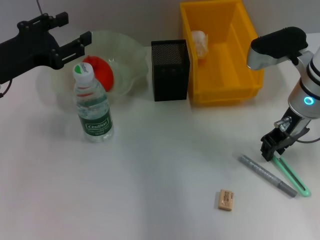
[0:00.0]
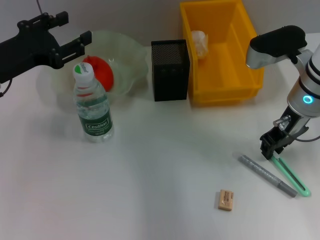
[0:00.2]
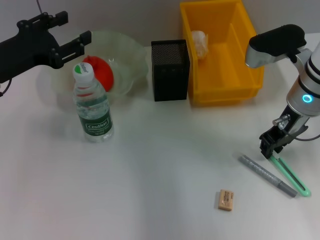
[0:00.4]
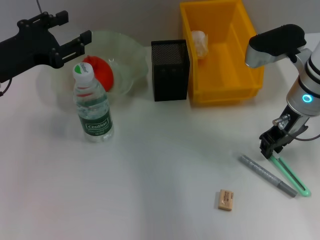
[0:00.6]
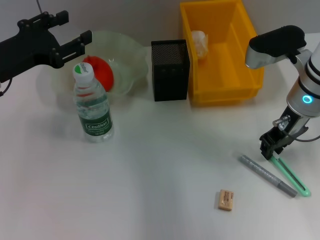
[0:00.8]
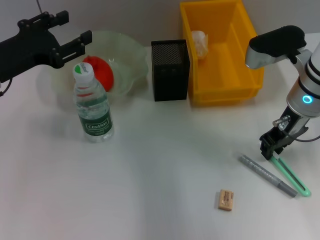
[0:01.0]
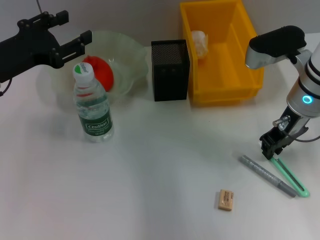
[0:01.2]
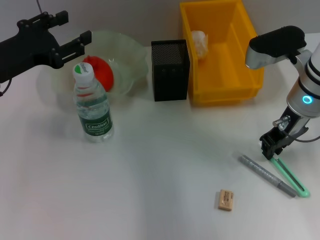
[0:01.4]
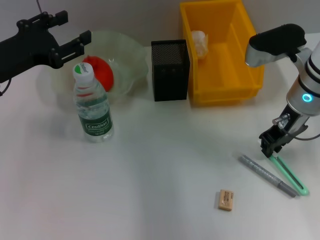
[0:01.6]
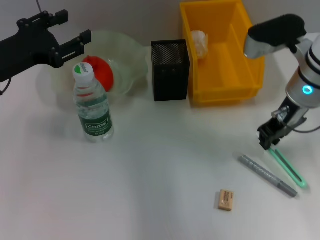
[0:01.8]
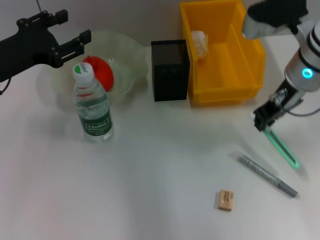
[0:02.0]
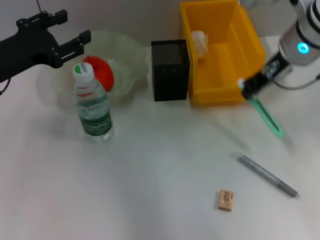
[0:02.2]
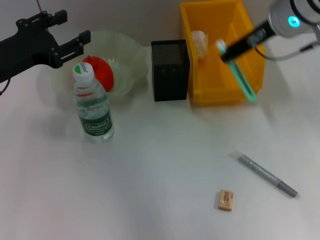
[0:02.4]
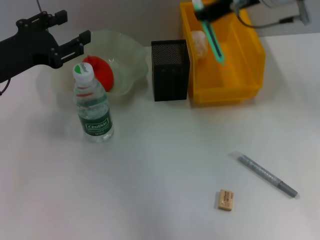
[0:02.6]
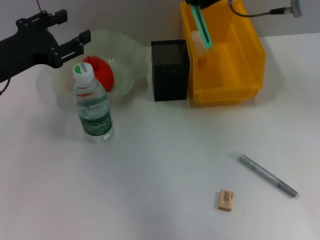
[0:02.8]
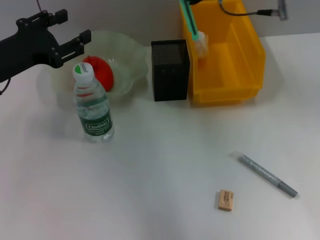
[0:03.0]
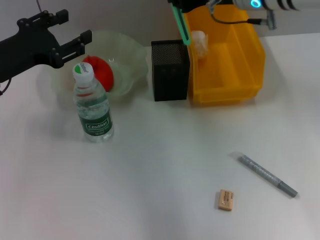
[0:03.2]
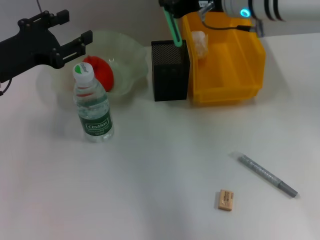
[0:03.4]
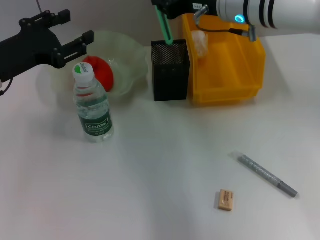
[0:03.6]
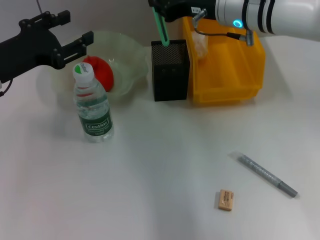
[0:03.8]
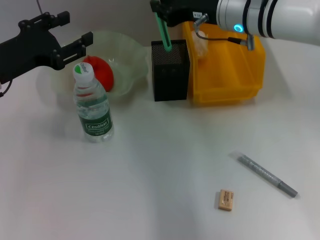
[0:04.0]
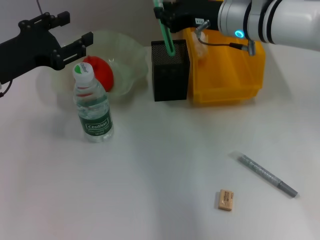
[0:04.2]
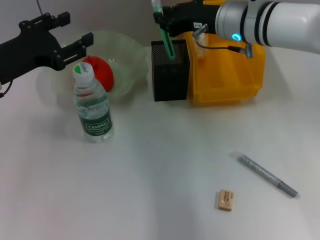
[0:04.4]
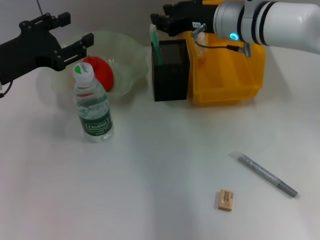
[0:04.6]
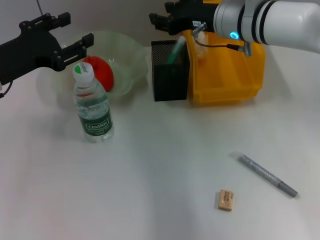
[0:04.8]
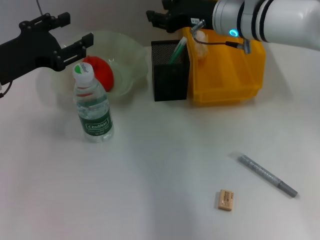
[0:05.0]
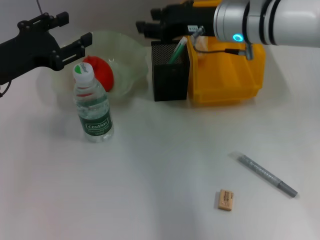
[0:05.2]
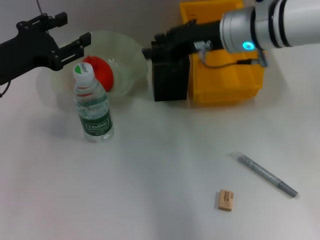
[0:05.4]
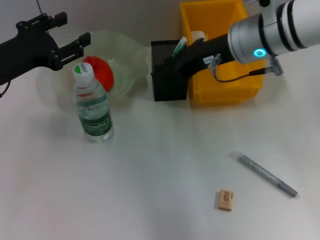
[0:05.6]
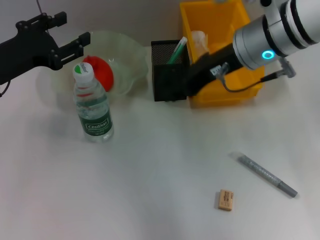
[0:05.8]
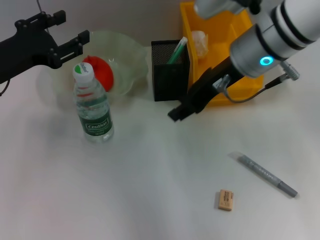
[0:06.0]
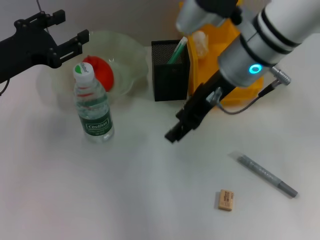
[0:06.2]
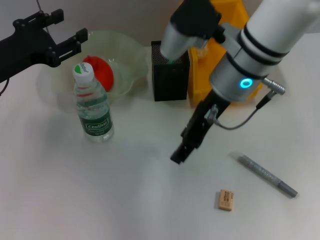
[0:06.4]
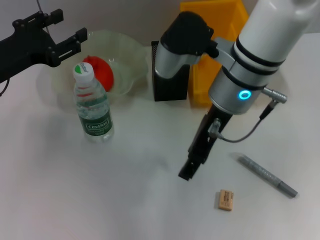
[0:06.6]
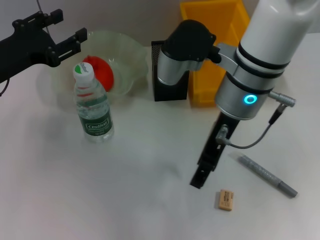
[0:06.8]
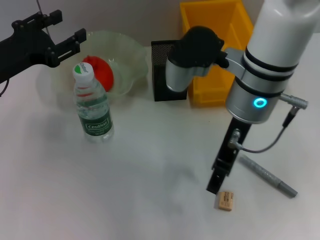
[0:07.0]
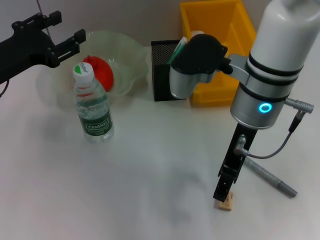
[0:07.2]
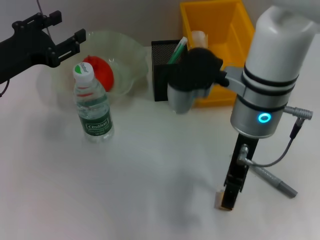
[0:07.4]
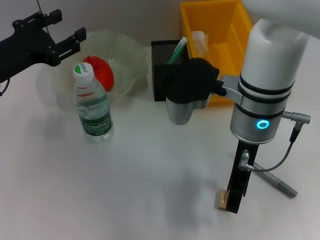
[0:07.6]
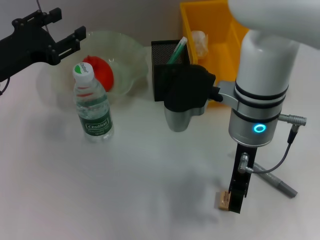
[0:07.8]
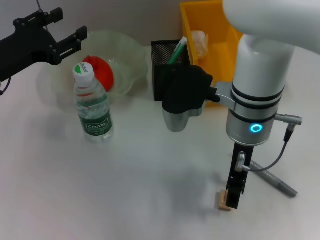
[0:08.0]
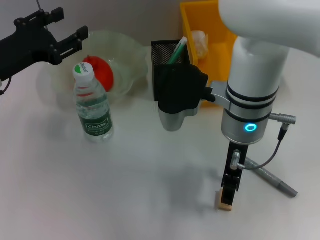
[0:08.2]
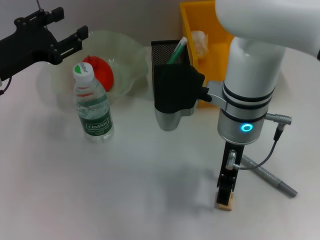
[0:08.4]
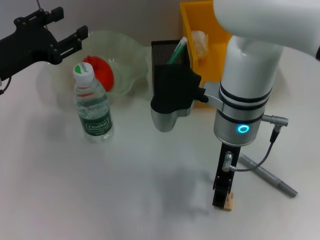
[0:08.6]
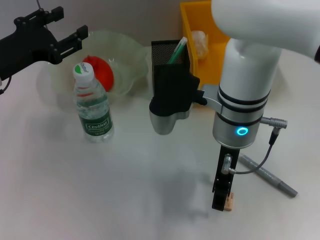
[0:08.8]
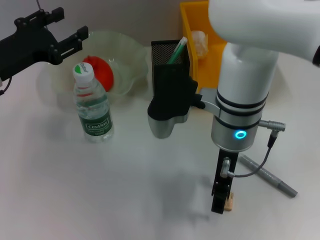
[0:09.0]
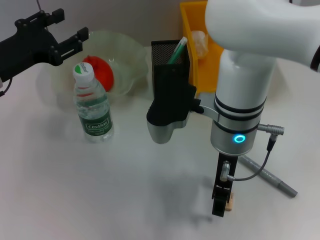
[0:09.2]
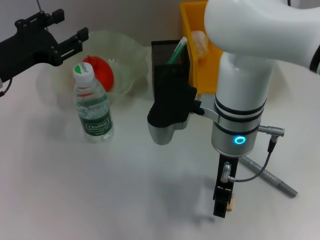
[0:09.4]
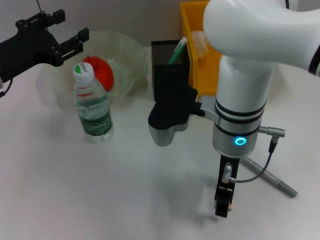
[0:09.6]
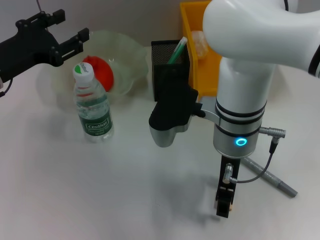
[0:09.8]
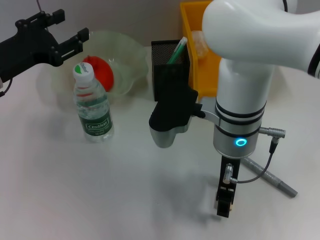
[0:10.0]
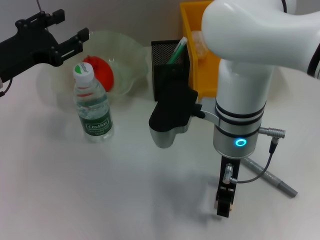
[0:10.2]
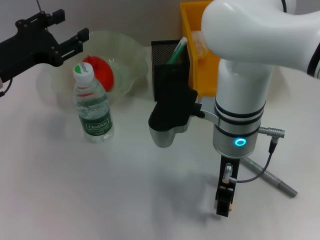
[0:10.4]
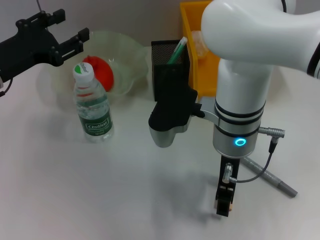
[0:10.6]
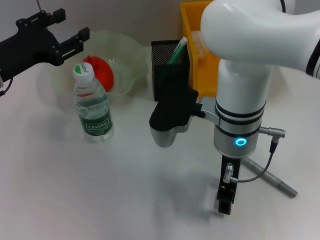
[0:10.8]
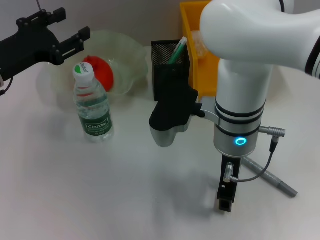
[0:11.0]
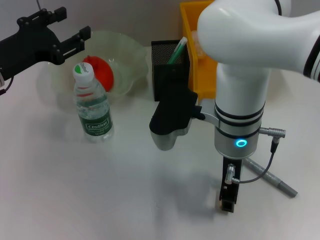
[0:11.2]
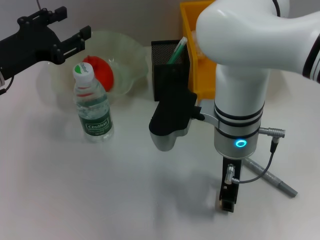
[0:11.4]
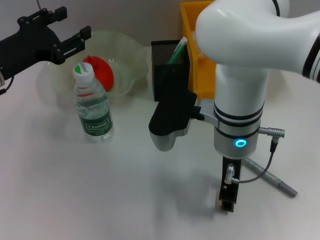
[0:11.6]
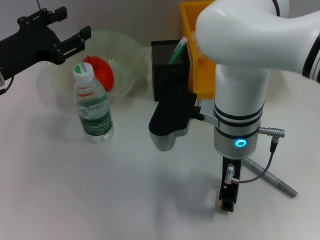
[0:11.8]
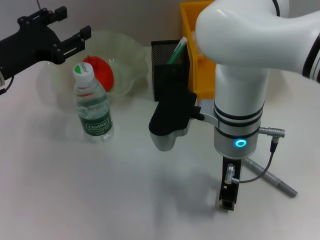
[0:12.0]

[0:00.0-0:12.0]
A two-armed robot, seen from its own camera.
Step, 0:01.6 to 0:05.4: Place the blue utility knife into the pen holder with the right hand.
Step, 0:05.6 to 0:11.6: Grab the eraser with the right hand.
0:00.0 to 0:01.6: Both grippers stay put.
0:01.6 to 0:03.0: The right gripper shifts some 10 cm upward and to the left.
0:03.0 to 0:04.4: The right gripper moves downward, roughly 10 cm.
0:04.4 to 0:06.0: The right gripper shifts approximately 5 cm backward, and opens its fingers.
0:06.0 to 0:07.6: The right gripper ends up approximately 5 cm from where it was.
0:09.0 to 0:10.4: Neither gripper changes place.
0:10.4 to 0:12.0: The right gripper closes.

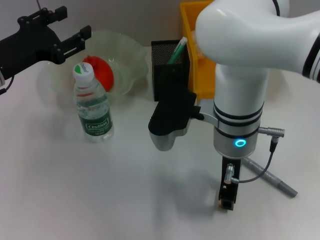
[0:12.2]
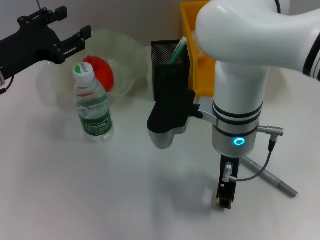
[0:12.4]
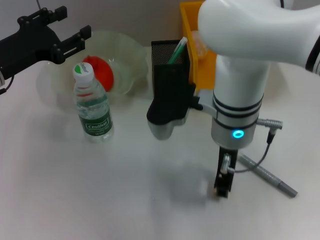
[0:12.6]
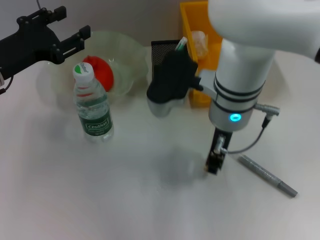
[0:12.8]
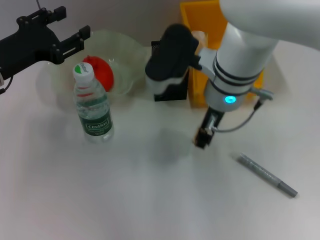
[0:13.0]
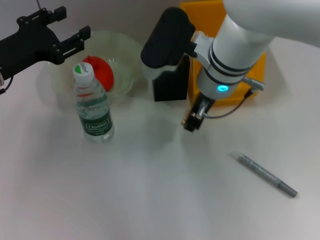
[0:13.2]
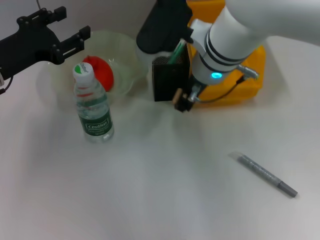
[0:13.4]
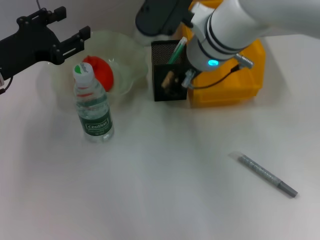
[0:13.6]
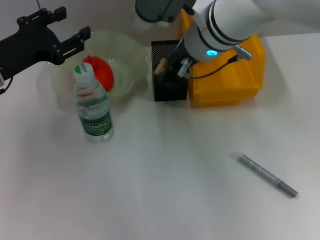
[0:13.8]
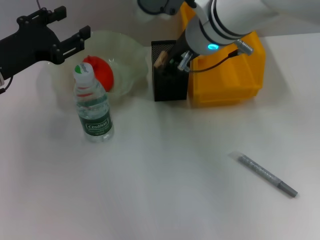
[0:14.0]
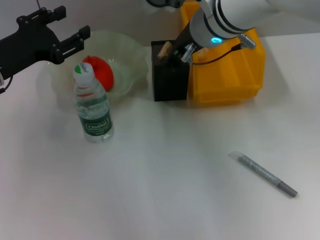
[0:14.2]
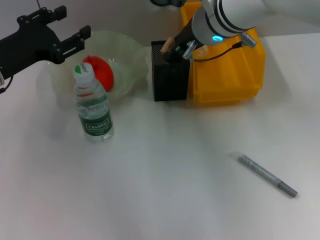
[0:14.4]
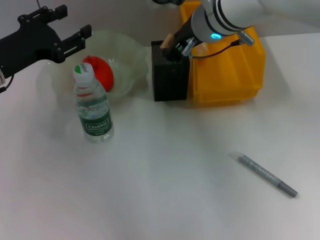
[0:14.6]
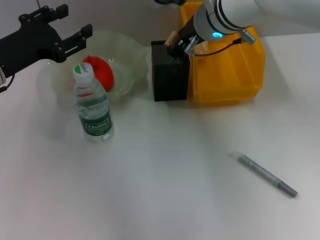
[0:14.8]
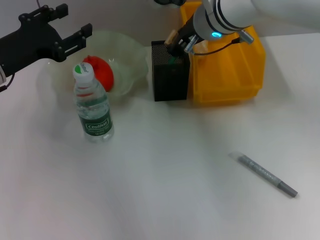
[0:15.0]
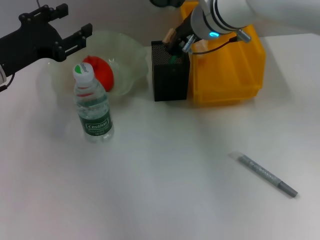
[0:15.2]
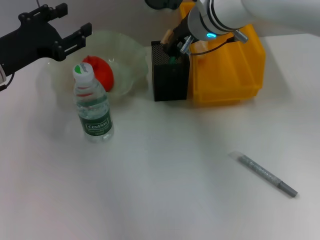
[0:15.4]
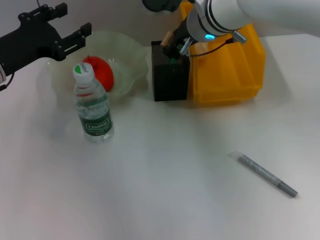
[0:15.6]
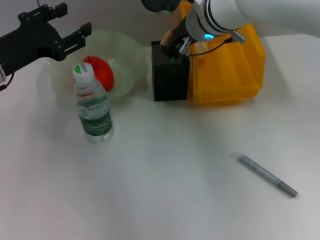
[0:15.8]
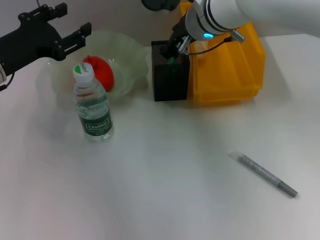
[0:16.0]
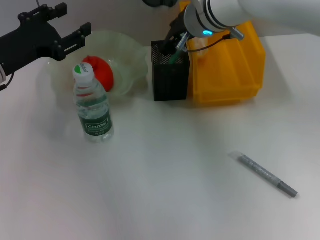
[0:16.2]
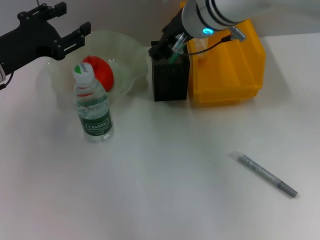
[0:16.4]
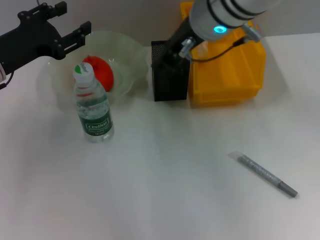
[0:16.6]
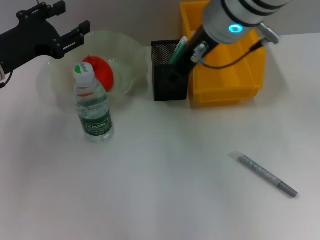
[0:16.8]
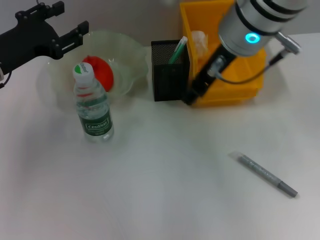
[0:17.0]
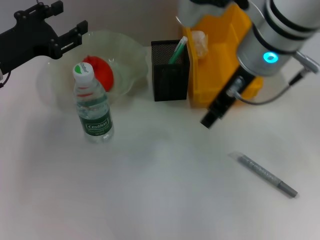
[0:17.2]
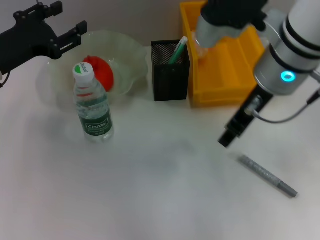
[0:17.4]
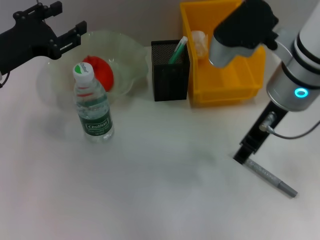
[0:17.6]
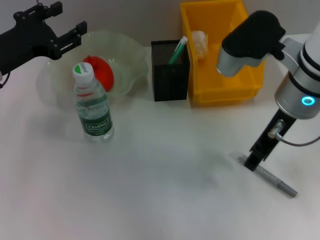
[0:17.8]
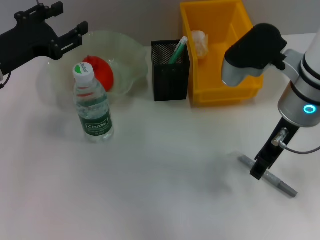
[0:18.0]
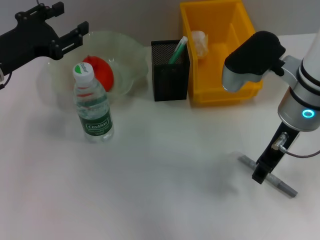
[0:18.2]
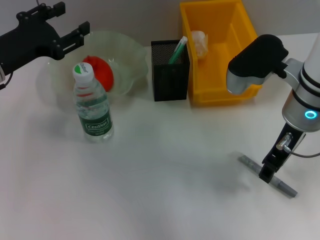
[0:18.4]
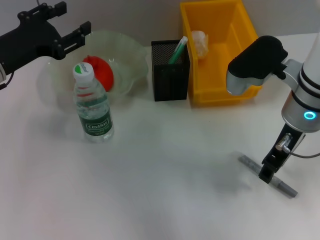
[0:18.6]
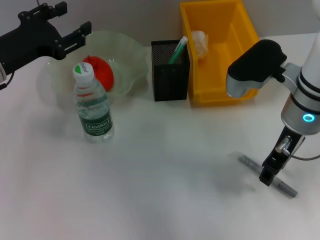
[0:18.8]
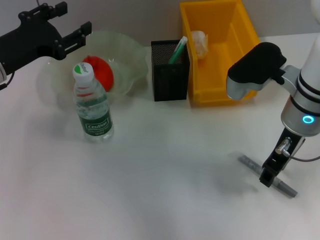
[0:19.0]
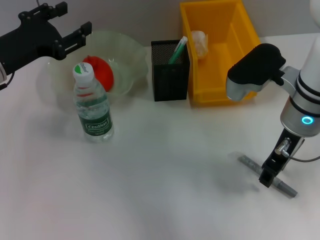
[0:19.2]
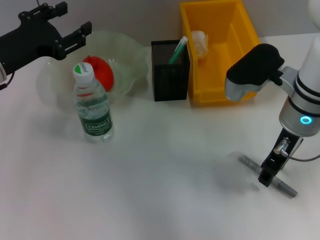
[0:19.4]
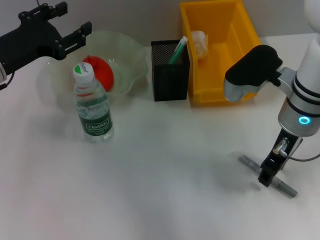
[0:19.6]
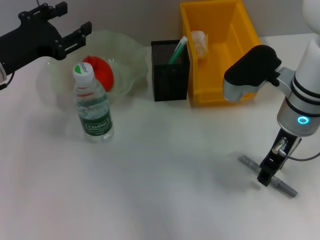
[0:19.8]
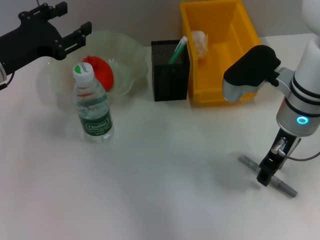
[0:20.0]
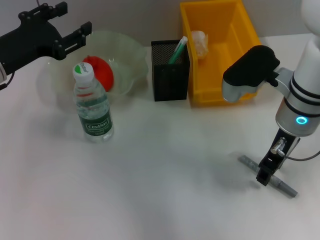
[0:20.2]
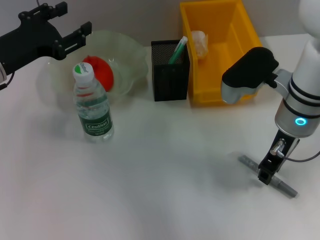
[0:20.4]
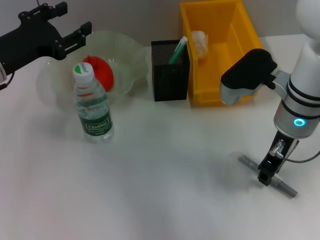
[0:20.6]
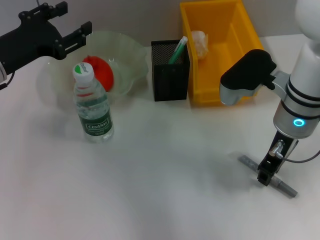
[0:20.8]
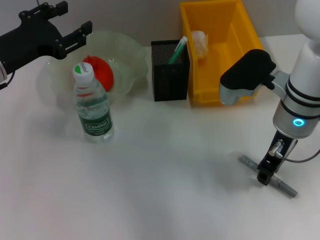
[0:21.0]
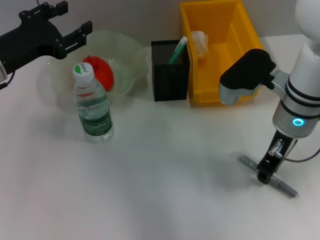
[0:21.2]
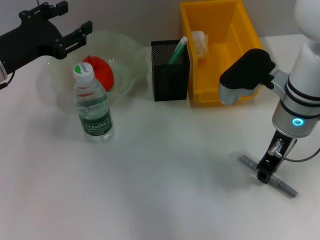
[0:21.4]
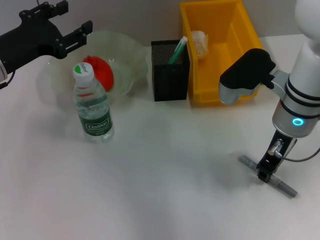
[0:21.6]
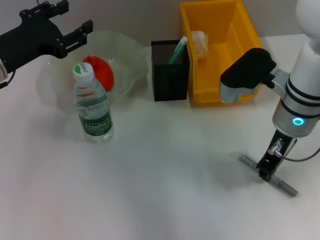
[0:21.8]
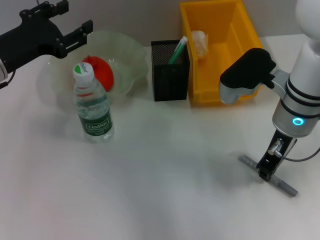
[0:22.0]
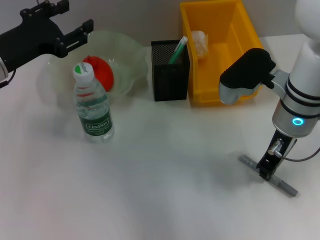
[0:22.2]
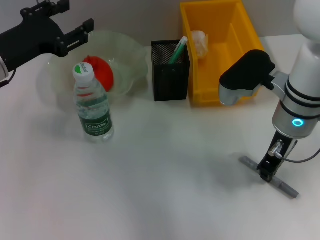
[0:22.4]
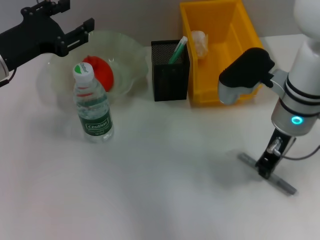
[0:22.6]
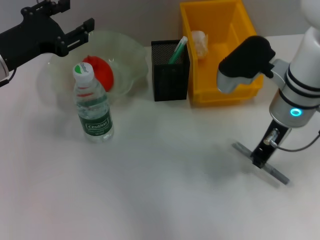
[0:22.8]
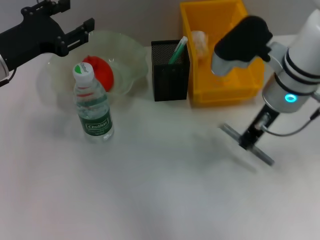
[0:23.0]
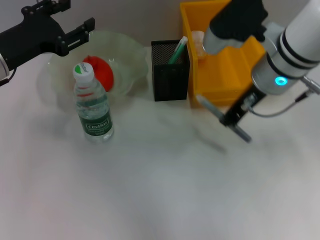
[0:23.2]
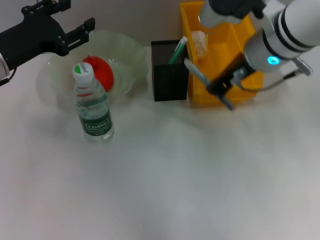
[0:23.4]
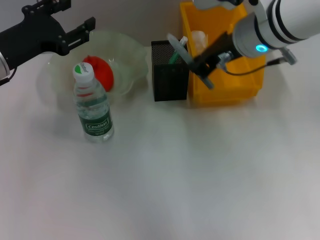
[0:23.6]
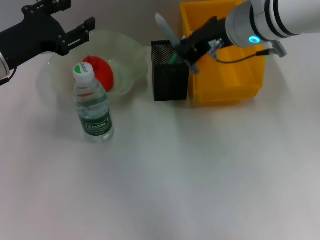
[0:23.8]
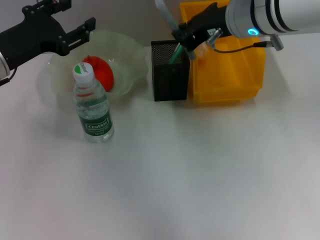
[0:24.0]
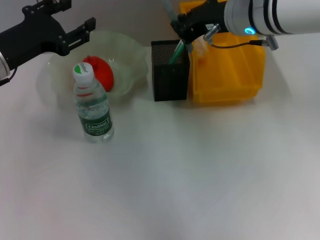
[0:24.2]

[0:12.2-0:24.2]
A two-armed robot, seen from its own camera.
Step, 0:12.2 to 0:16.6: Put the eraser into the pen holder with the right hand.
Step, 0:17.0 to 0:22.2: Grab the gray glue with the right hand.
0:12.2 to 0:13.8: The right gripper travels upward and forward by about 10 cm.
0:13.8 to 0:15.2: The grippers stay close to where they were, moving slightly.
0:15.2 to 0:16.6: The right gripper ends up some 5 cm from where it was.
0:16.6 to 0:18.2: The right gripper shifts approximately 15 cm to the right, downward and backward.
0:18.2 to 0:19.8: There are only small adjustments of the grippers.
0:19.8 to 0:22.6: Neither gripper changes place.
0:22.6 to 0:24.2: The right gripper shifts roughly 10 cm upward and forward.
